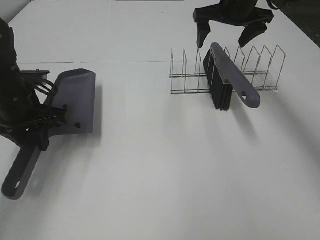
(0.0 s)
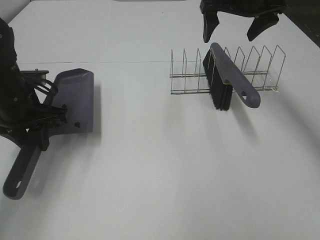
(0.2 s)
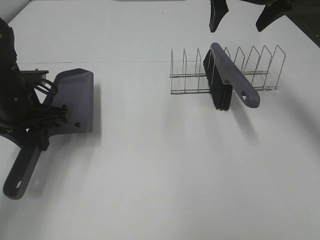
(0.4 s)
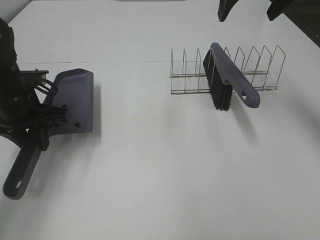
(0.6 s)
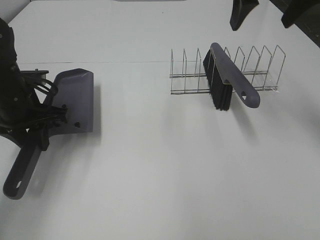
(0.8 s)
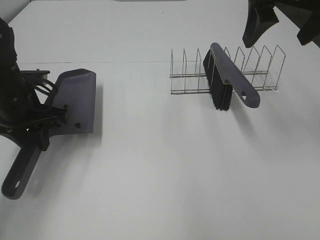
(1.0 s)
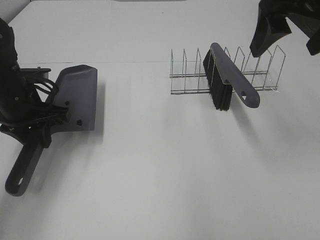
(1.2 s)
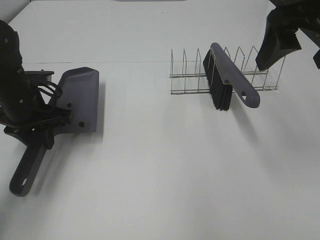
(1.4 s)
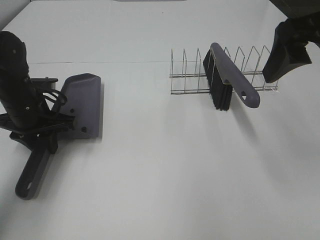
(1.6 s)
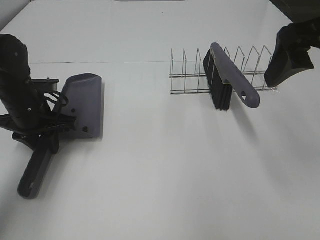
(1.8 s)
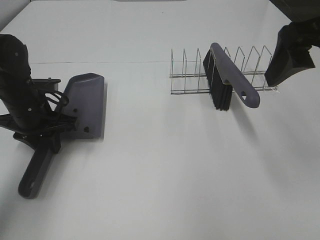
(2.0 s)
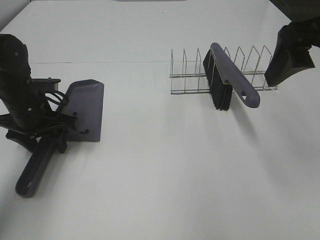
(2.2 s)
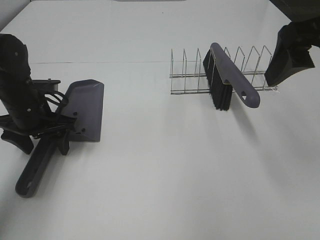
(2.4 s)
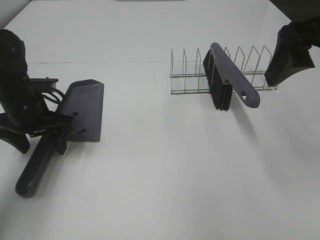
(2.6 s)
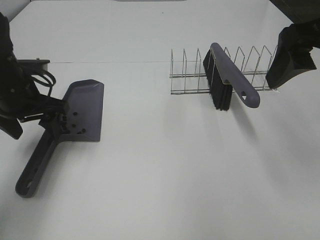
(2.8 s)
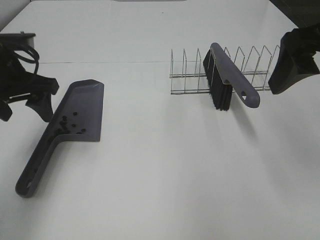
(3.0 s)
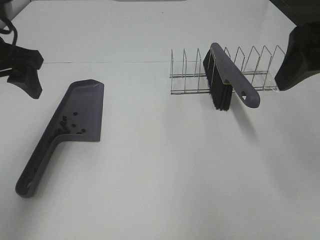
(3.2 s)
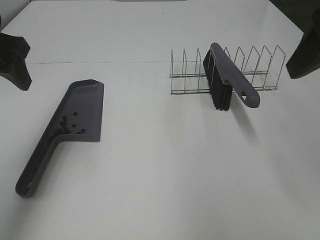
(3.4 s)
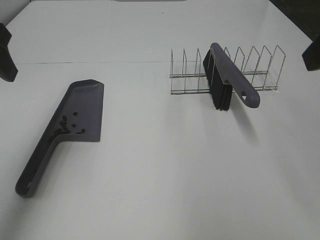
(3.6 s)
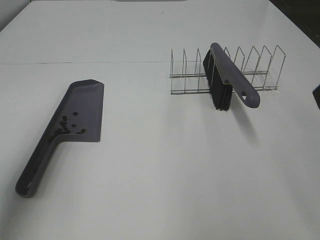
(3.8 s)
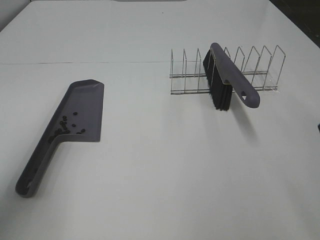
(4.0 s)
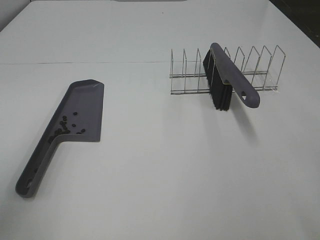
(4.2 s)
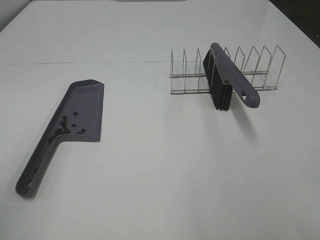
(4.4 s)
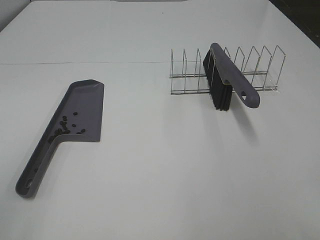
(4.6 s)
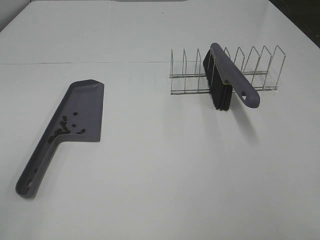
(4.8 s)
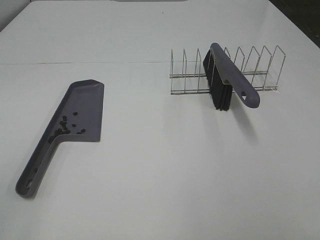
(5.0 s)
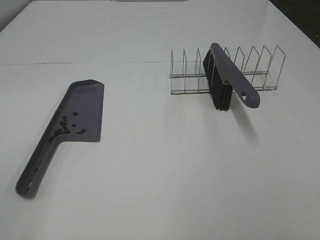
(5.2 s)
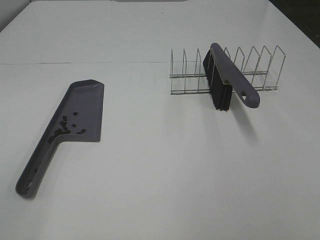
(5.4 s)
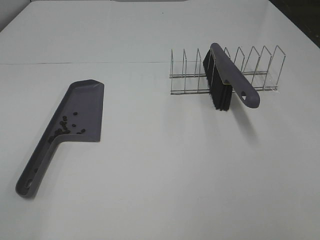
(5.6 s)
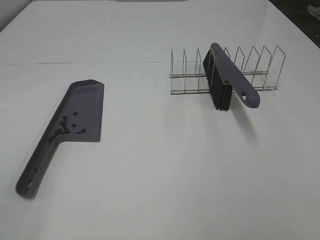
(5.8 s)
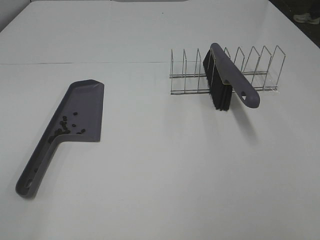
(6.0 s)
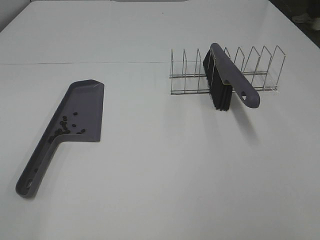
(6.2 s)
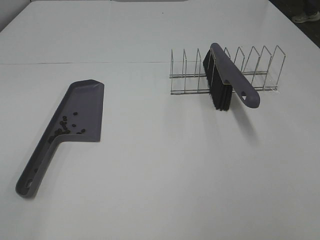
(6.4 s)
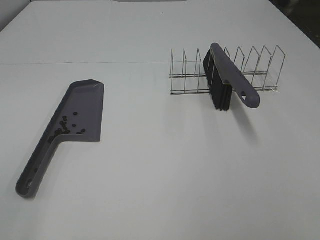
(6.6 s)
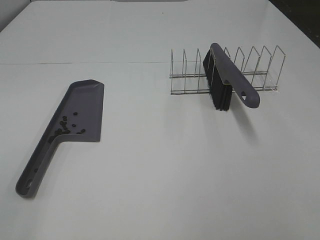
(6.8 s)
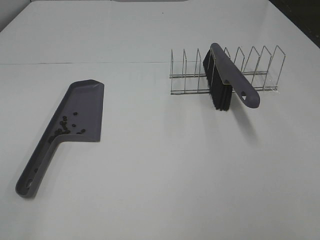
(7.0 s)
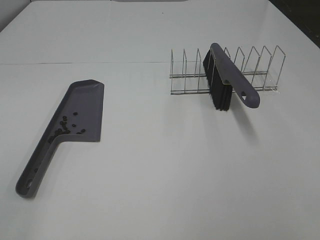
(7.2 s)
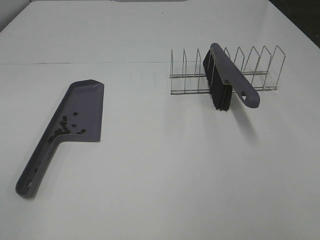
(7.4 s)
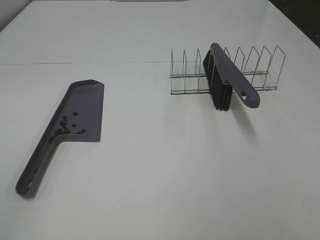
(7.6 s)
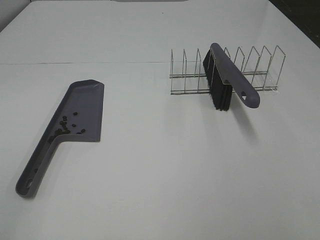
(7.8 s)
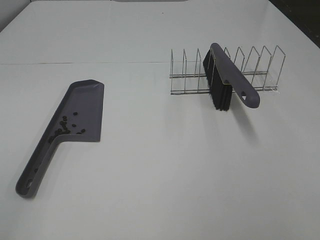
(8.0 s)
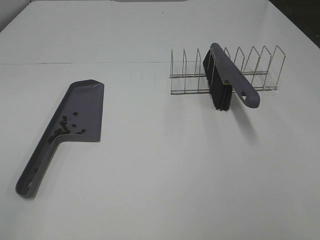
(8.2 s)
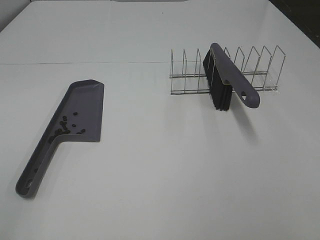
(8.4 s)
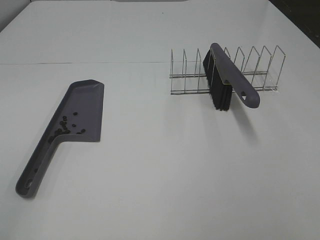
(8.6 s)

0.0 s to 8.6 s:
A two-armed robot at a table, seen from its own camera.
Task of the whole recording: Sweep Coffee Bean.
Step, 0.0 to 2.6 s: Left hand:place the dustpan on the table.
0.0 to 1.4 s: The right gripper is displaced backward by about 20 cm.
1.4 to 2.8 s: The left gripper opens its fingers.
2.8 to 4.4 s: The right gripper moves backward, some 15 cm. Meanwhile the left gripper is displaced backward by approximately 25 cm.

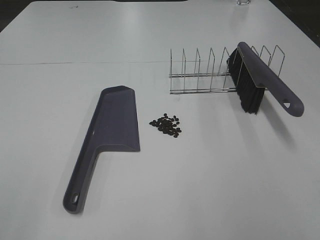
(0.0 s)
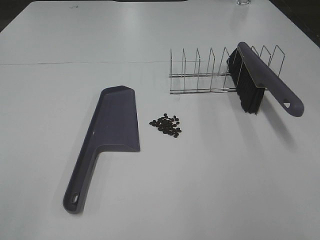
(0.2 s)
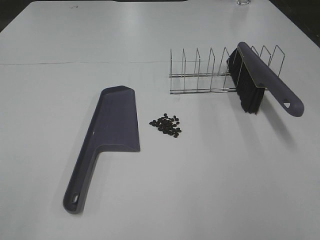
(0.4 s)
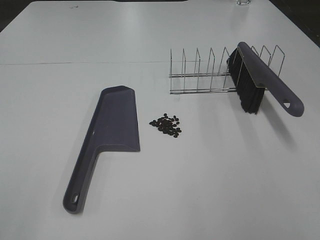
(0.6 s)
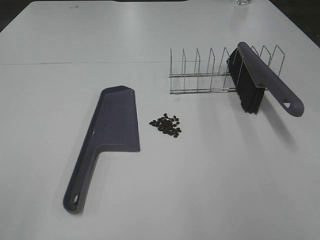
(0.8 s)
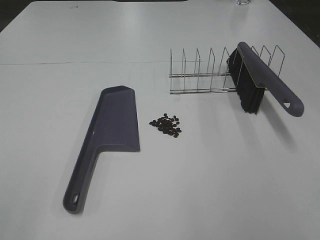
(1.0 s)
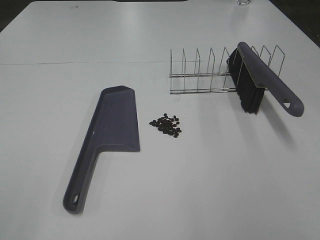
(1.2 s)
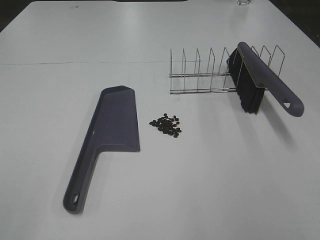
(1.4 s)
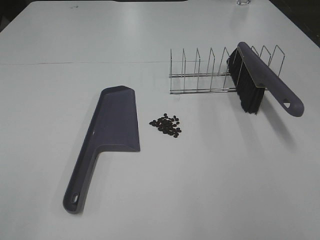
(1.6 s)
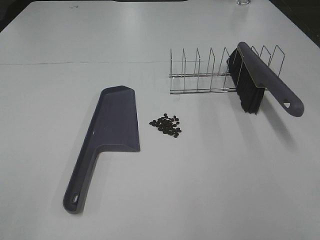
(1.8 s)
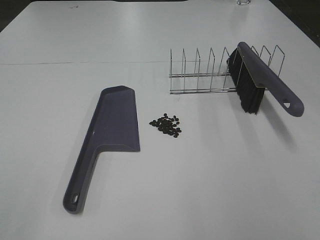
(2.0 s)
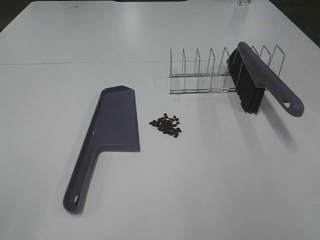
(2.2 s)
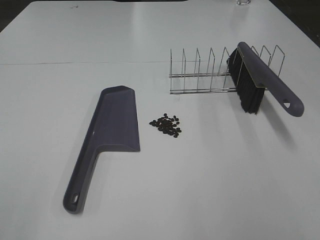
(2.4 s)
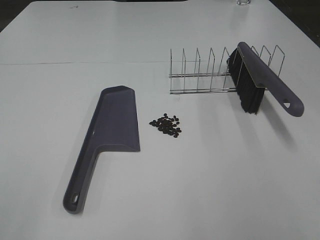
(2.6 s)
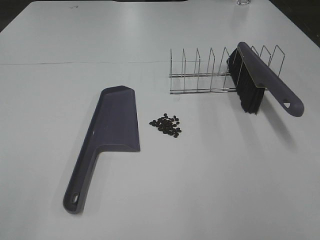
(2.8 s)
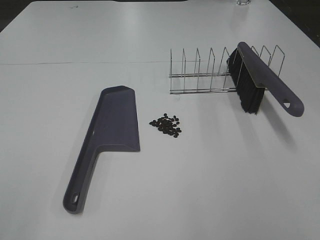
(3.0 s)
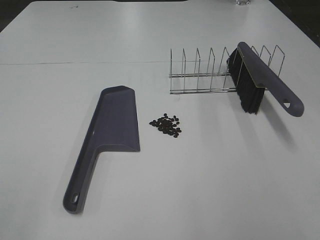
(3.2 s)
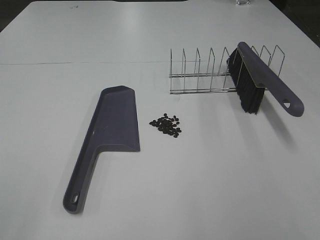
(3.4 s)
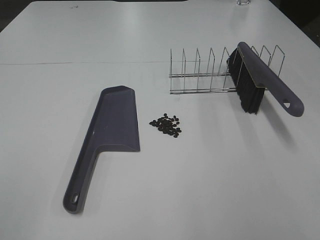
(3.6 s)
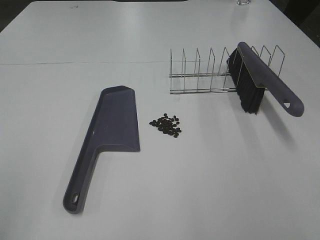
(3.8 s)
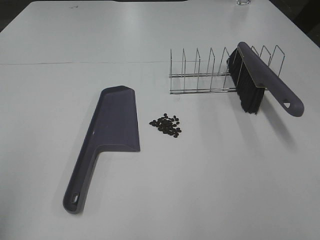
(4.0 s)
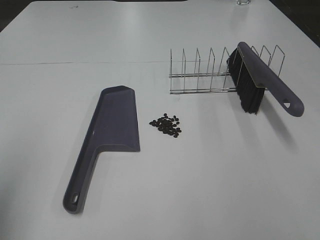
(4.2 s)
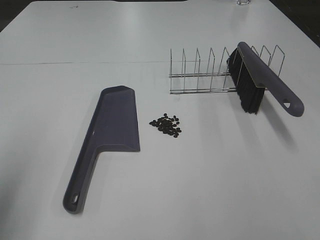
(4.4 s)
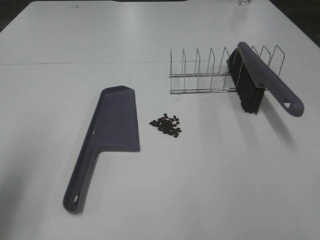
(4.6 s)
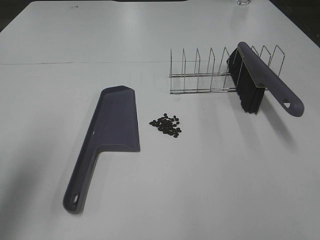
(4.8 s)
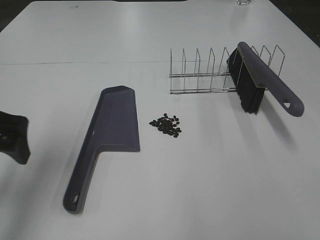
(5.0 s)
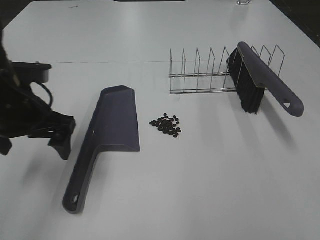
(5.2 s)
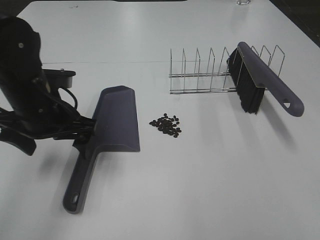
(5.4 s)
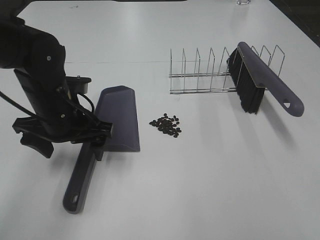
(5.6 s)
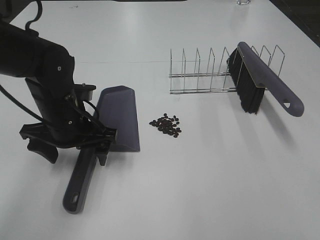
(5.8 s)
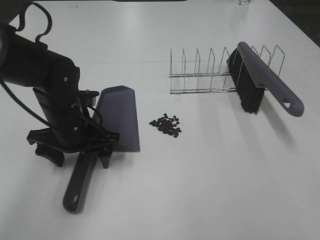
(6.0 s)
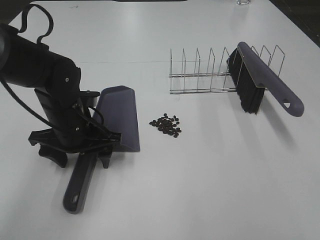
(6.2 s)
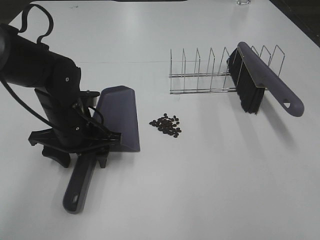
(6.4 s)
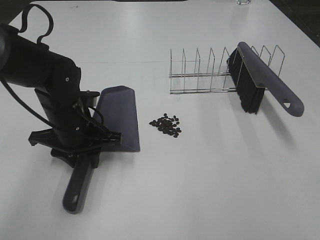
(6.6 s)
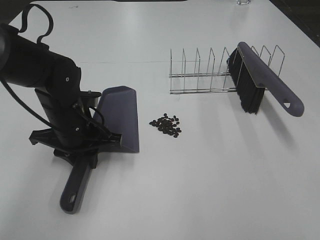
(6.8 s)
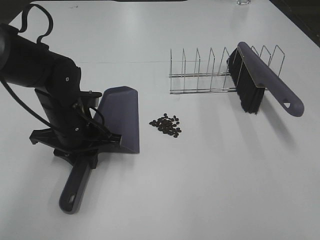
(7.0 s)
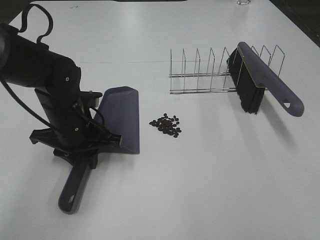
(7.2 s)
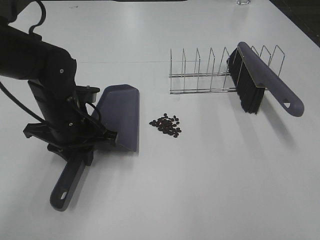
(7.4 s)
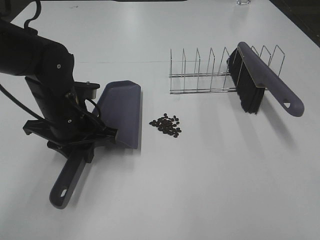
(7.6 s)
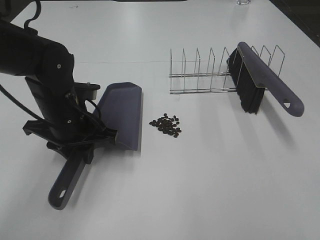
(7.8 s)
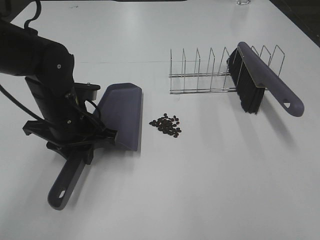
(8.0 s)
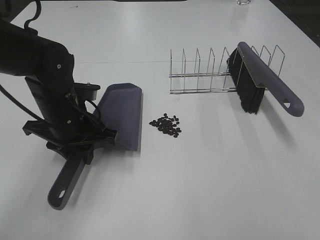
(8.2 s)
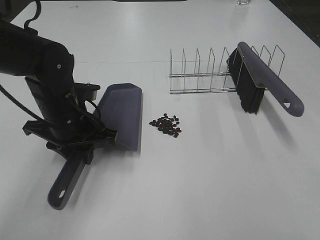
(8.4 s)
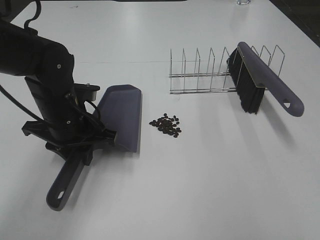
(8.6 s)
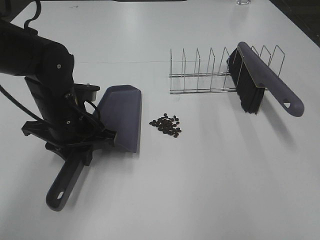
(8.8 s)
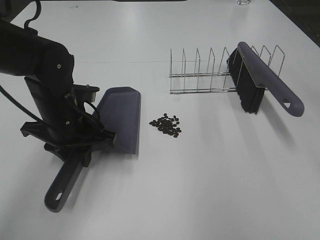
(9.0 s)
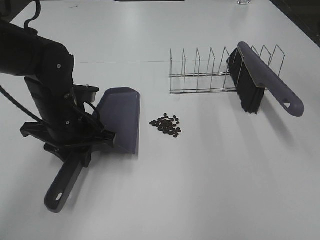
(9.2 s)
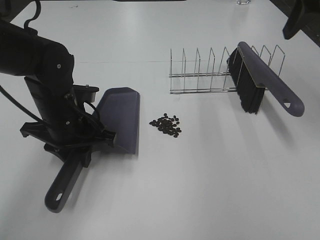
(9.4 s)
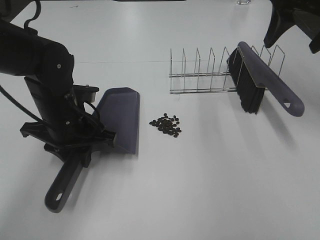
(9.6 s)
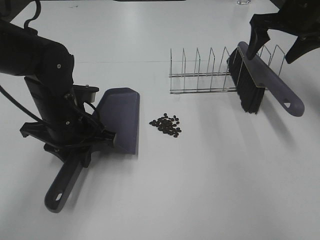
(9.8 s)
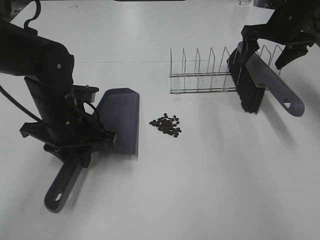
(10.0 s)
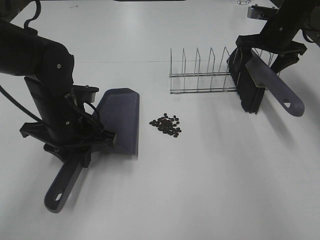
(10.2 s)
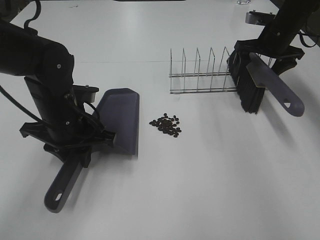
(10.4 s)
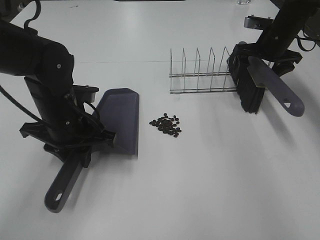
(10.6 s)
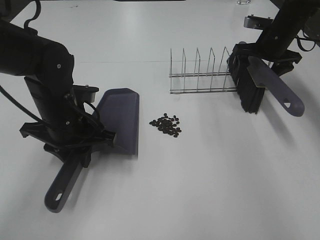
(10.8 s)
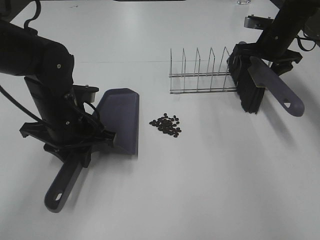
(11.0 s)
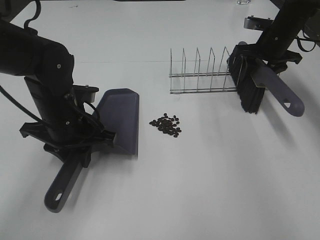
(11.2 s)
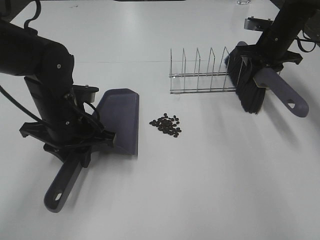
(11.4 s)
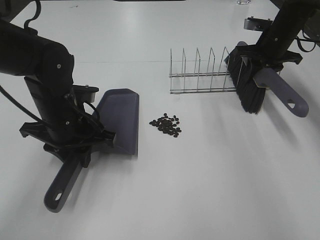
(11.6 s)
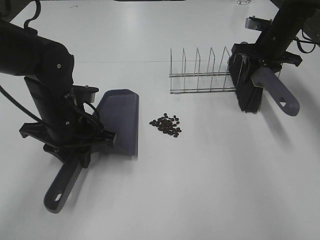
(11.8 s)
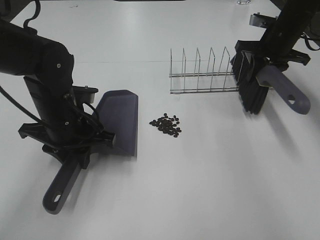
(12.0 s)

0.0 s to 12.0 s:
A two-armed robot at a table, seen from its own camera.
Task of the whole recording: Sweep Coffee Bean.
Step, 0.0 to 6.8 s: Left hand: grab the dustpan.
Step, 8.4 to 11.4 s: Right hand:grab the broom.
0.0 to 3.0 s: The two grippers keep their place.
3.0 to 4.4 s: The left gripper moves forward, approximately 15 cm.
4.4 to 6.0 s: The left gripper is displaced to the right, downward and forward by some 30 cm.
6.0 to 7.6 s: The left gripper closes its fingers.
7.6 to 9.0 s: The right gripper heads forward and upward, covering some 25 cm, and opens its fingers.
9.0 to 10.4 s: The right gripper moves forward and downward, some 35 cm.
10.4 to 12.0 s: The right gripper closes.

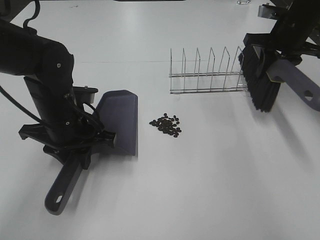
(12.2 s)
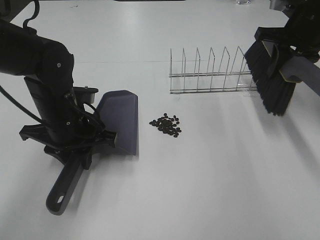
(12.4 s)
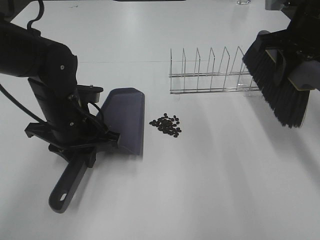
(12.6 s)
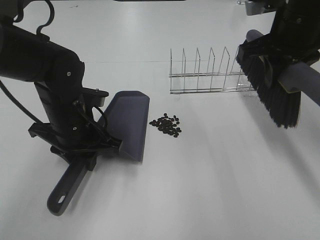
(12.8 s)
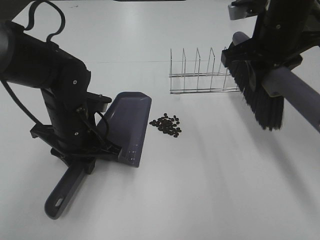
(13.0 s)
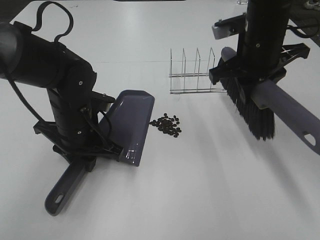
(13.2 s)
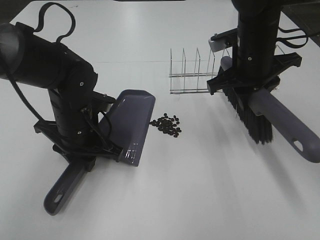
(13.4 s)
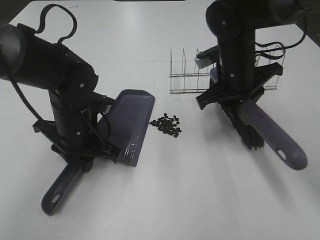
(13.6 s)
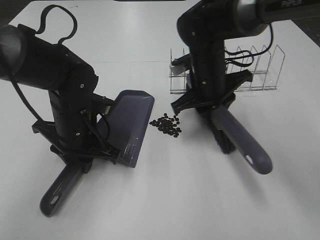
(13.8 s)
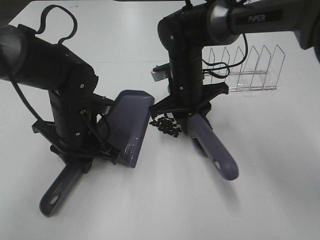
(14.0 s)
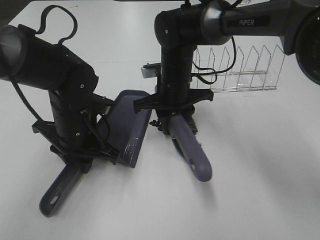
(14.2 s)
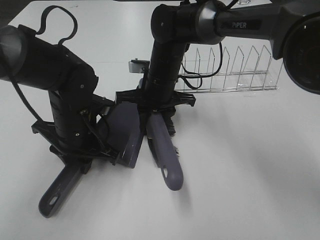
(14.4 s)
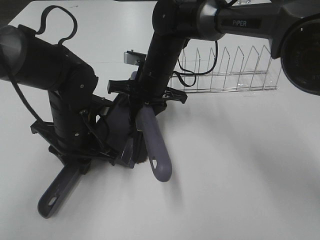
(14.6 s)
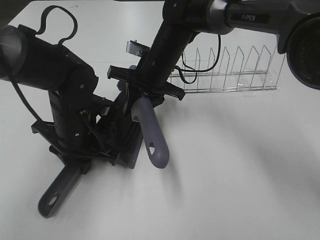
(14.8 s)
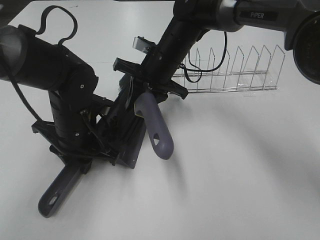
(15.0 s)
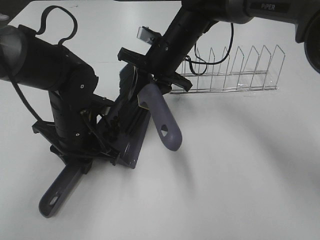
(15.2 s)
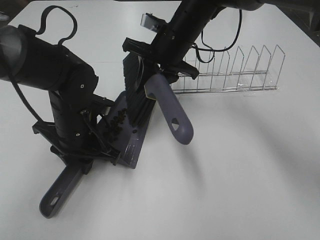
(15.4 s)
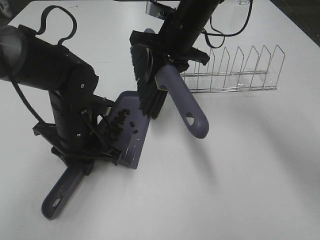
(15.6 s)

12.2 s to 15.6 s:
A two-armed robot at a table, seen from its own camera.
Task of the whole recording: Sweep Coffee Bean.
Step, 12.2 to 15.6 s: Right hand:sweep the coffee beans into the dustpan.
12.2 to 13.8 s: The right gripper is displaced to the left by approximately 20 cm.
13.8 to 15.6 s: The right gripper is displaced upward and forward by roughly 10 cm.
